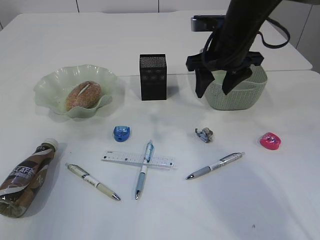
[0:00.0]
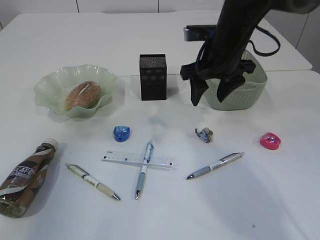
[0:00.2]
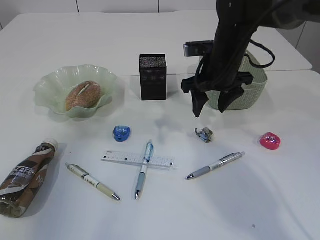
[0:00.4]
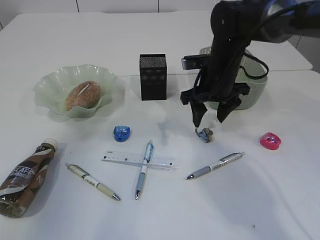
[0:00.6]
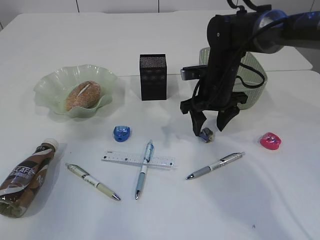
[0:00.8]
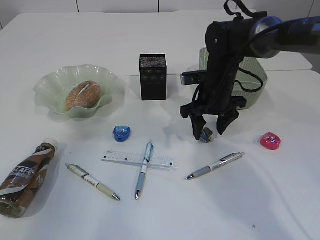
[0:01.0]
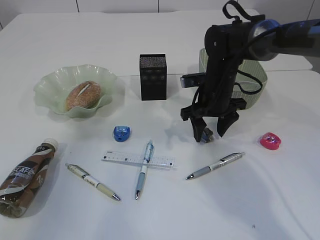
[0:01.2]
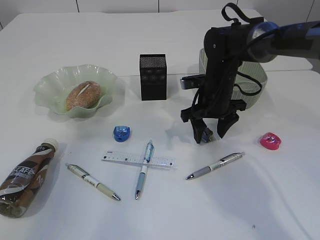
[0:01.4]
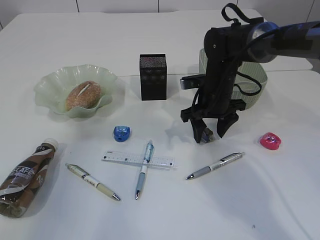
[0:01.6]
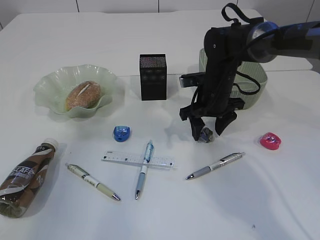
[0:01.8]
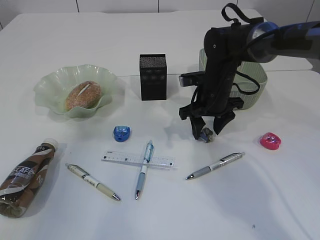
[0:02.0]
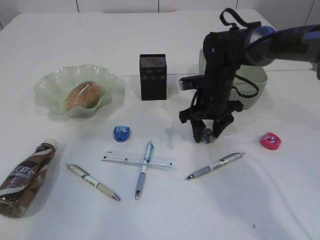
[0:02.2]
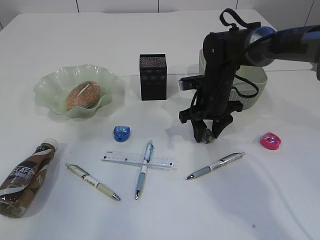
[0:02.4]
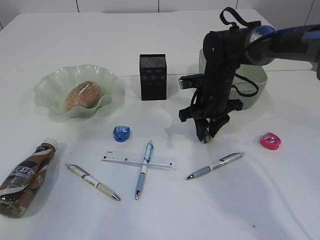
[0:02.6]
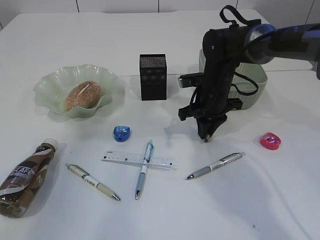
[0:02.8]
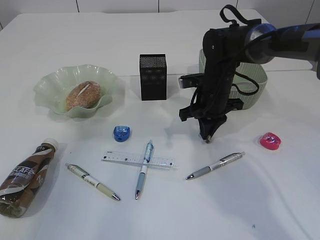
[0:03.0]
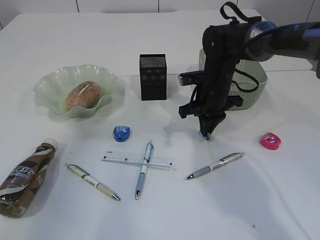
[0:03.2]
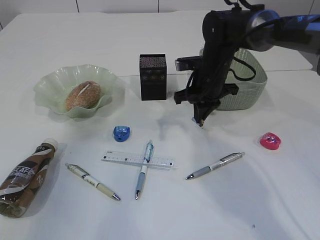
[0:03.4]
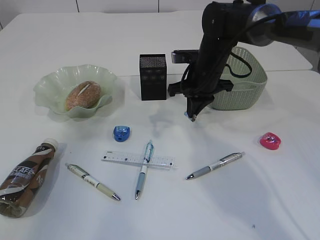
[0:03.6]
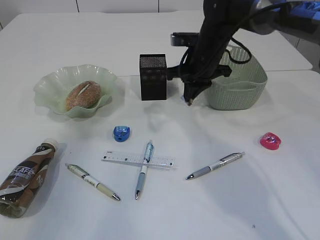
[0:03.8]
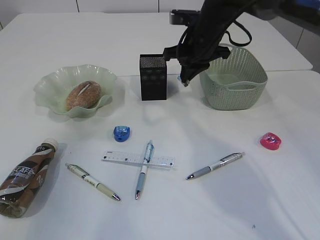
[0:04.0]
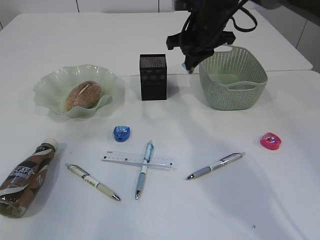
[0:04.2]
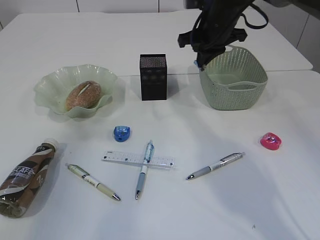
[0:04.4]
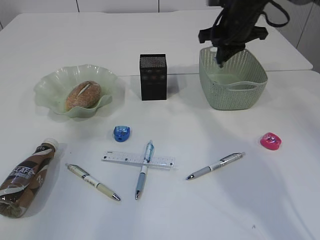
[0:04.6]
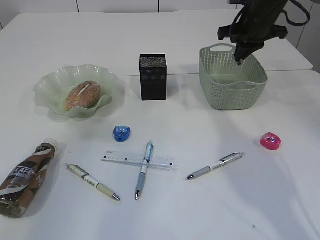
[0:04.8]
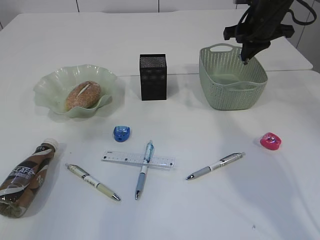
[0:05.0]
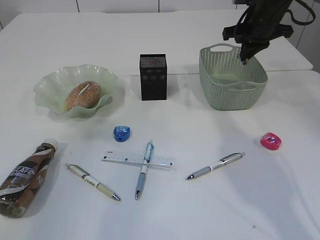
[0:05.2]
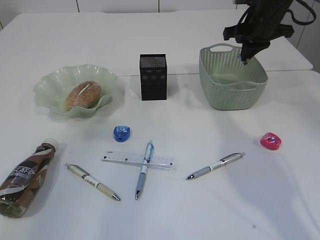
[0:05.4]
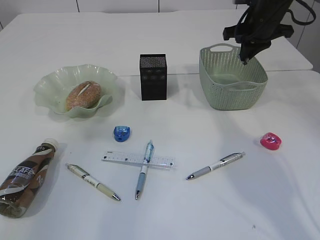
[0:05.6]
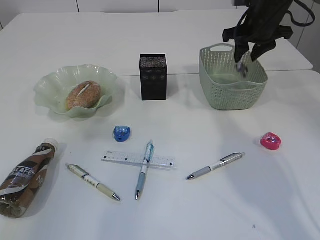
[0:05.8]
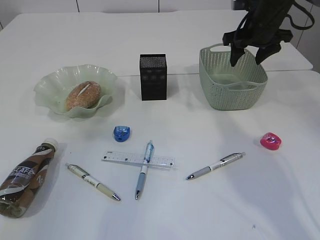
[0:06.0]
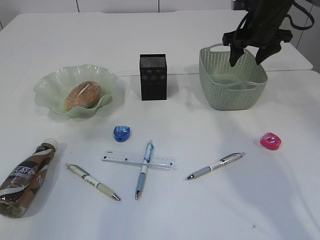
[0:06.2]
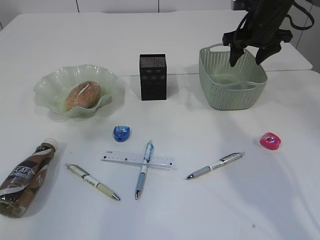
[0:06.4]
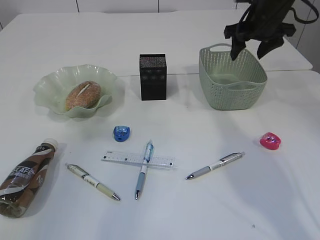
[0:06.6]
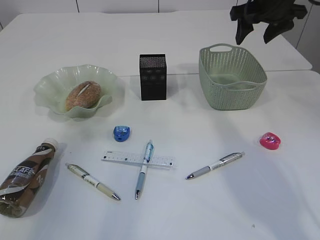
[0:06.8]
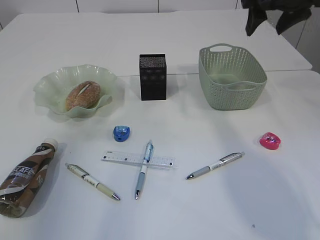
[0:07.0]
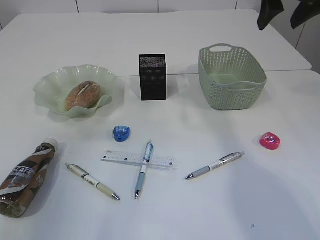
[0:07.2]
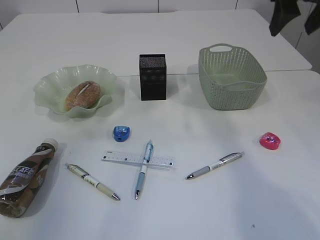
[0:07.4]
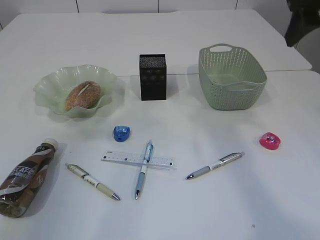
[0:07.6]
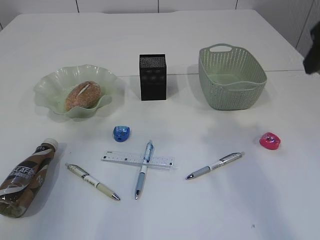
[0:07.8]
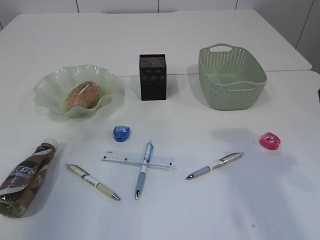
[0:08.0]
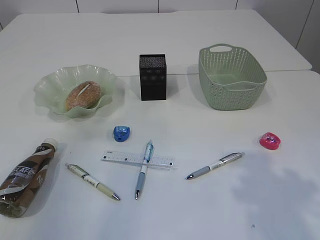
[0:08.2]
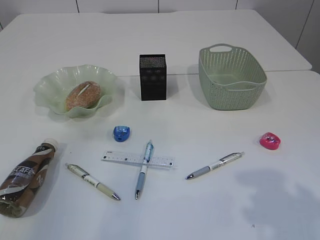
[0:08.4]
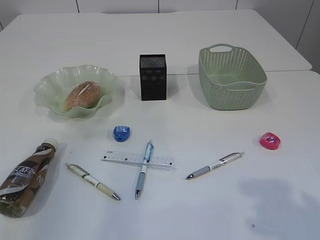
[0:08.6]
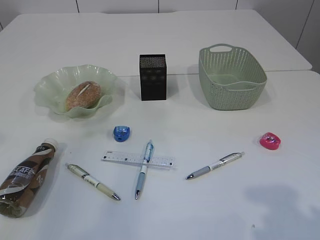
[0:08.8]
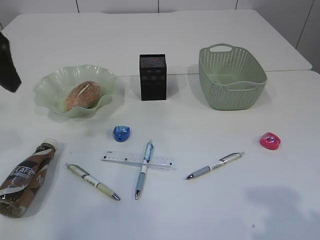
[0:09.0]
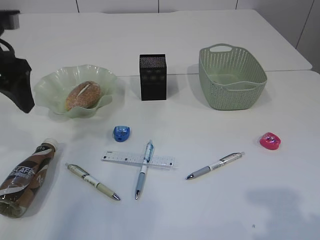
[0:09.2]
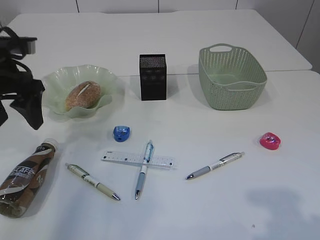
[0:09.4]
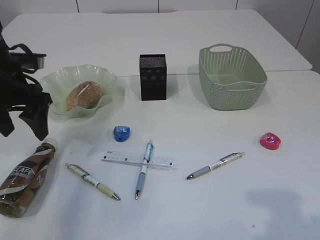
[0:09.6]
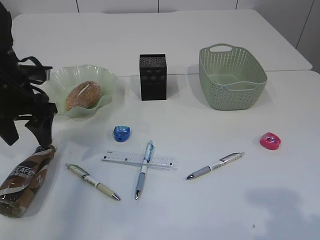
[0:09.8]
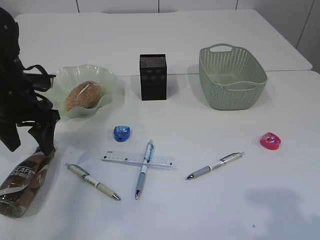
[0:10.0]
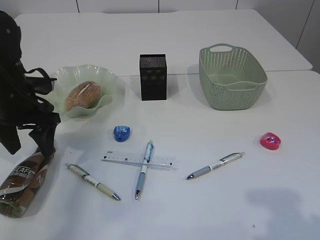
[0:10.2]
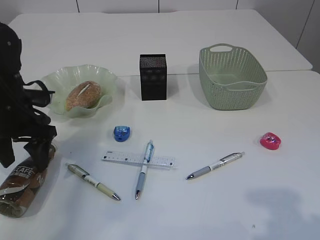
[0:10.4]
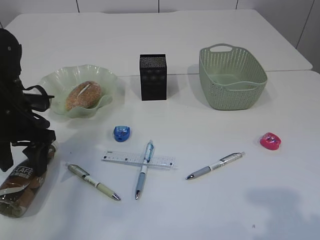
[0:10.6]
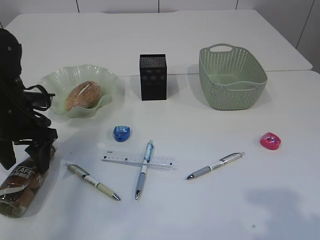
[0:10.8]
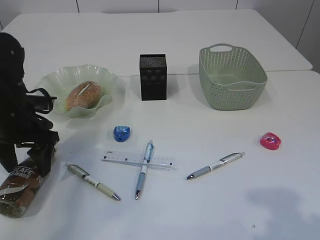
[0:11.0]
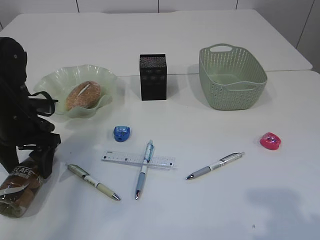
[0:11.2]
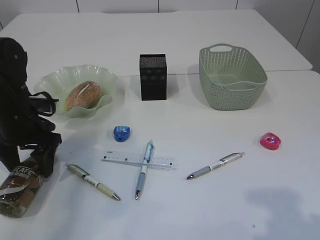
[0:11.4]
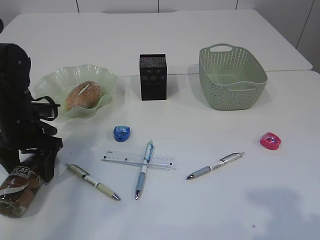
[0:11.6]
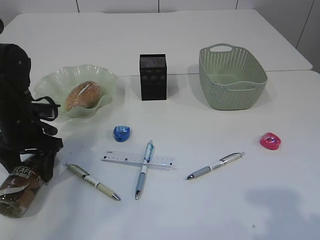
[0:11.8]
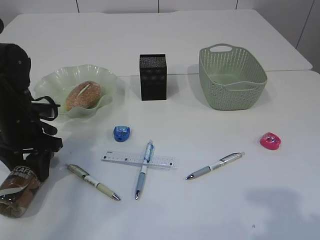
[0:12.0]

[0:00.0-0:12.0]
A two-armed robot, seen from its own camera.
Step, 0:00.0 to 0:03.6: Pick up the waste paper.
Step, 0:03.8 to 0:06.8: Place the waste paper in the basket.
0:00.0 to 0:01.6: The right gripper moves downward, approximately 10 cm.
0:01.6 to 0:03.0: The right gripper closes its fingers.
0:03.0 to 0:04.4: The right gripper heads upward, covering roughly 15 cm.
0:04.4 to 0:06.0: The right gripper shifts some 10 cm to the right, and opens up.
0:06.0 to 0:07.6: The right gripper is displaced backward and upward by some 20 cm.
0:07.6 to 0:09.0: The left gripper travels downward and forward by some 10 cm; the right gripper goes some 25 cm backward and downward.
0:09.0 to 0:10.4: The left gripper travels downward by some 20 cm.
0:10.4 to 0:12.0: The left gripper closes its fingers.

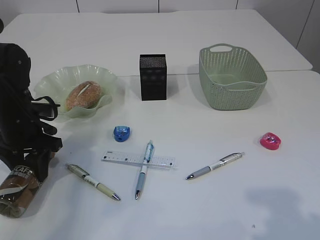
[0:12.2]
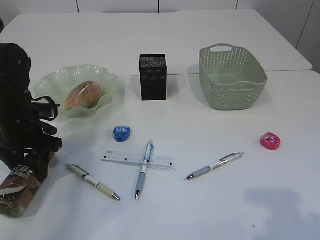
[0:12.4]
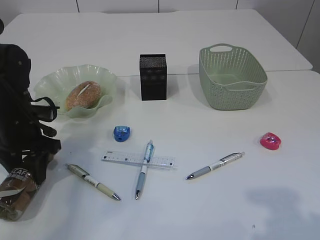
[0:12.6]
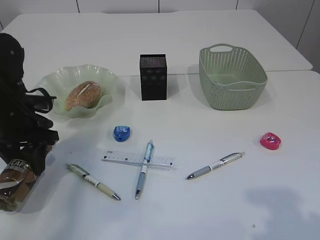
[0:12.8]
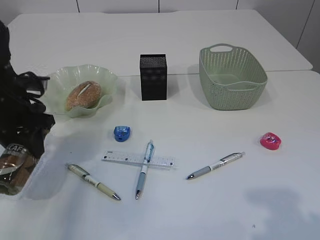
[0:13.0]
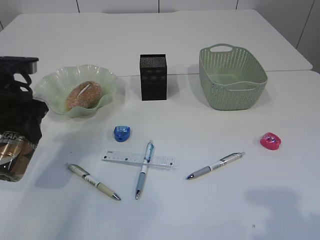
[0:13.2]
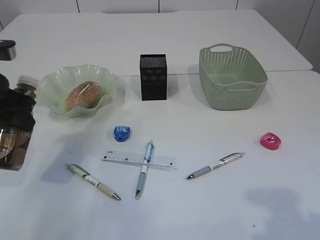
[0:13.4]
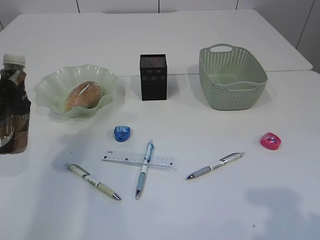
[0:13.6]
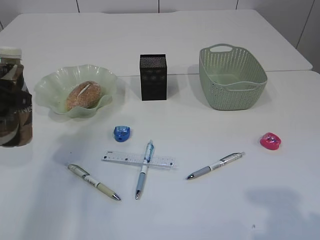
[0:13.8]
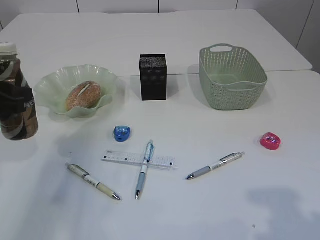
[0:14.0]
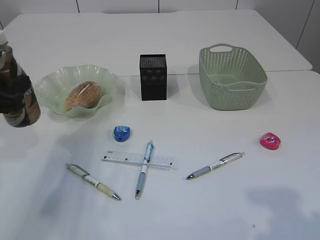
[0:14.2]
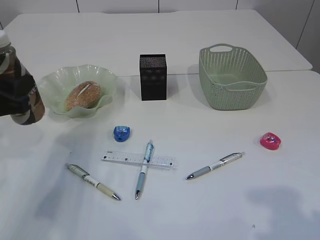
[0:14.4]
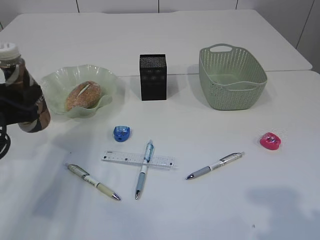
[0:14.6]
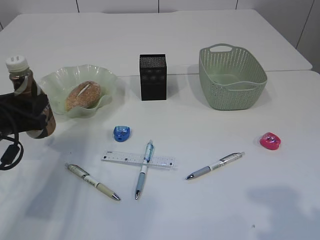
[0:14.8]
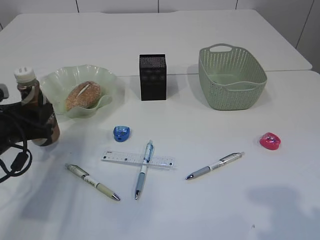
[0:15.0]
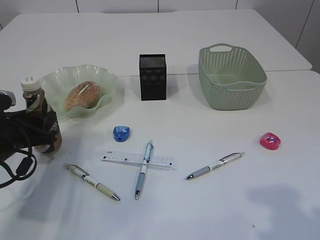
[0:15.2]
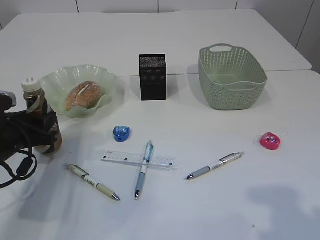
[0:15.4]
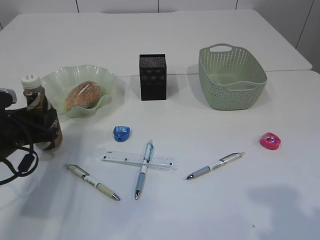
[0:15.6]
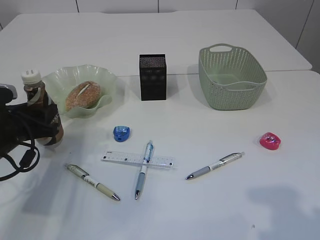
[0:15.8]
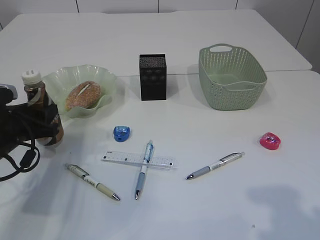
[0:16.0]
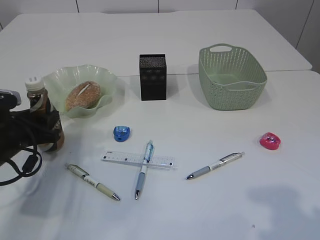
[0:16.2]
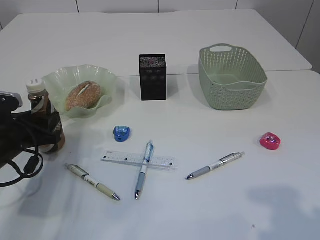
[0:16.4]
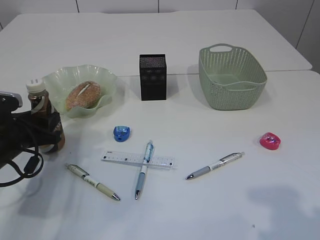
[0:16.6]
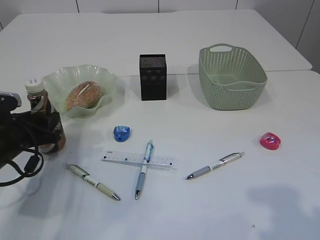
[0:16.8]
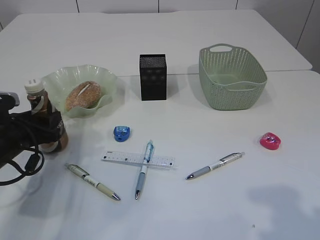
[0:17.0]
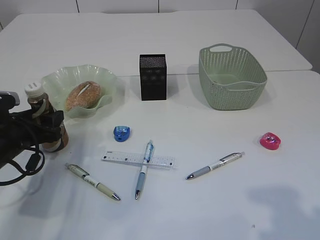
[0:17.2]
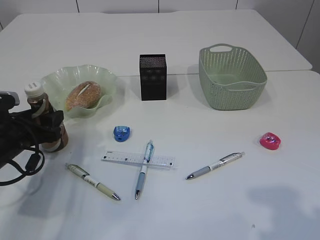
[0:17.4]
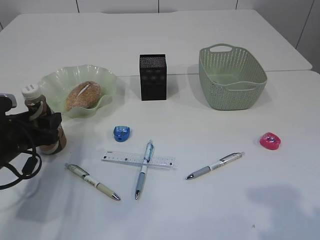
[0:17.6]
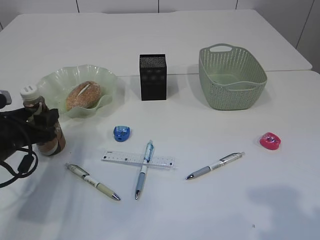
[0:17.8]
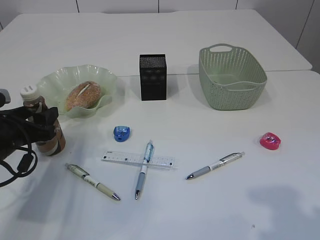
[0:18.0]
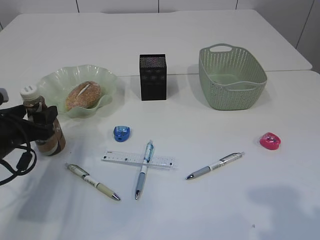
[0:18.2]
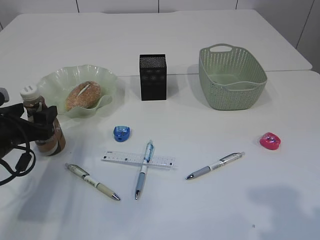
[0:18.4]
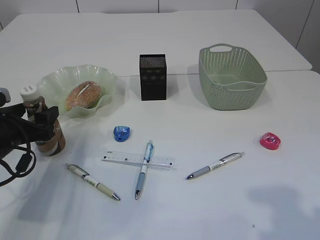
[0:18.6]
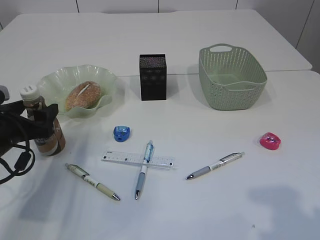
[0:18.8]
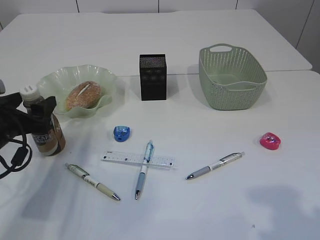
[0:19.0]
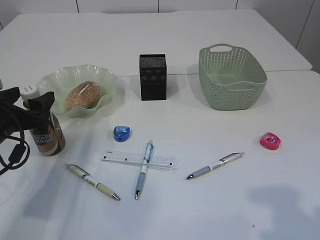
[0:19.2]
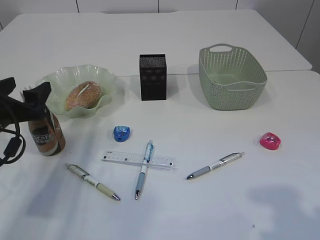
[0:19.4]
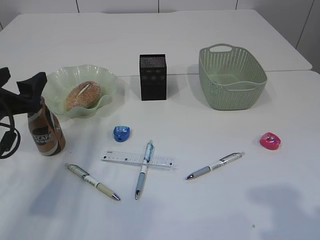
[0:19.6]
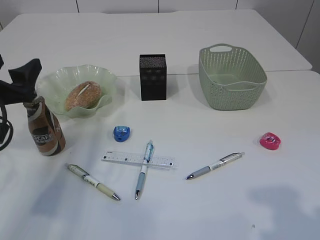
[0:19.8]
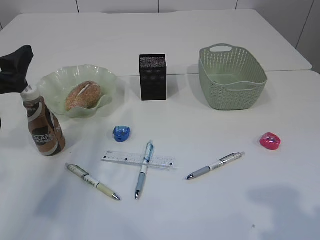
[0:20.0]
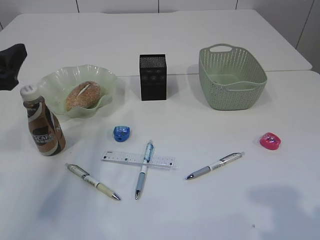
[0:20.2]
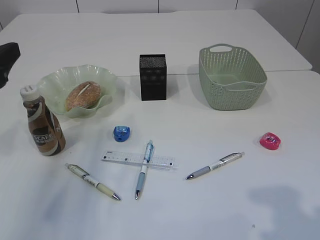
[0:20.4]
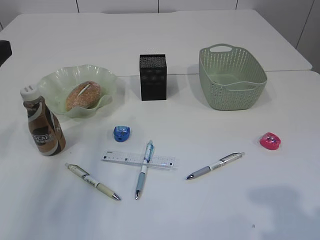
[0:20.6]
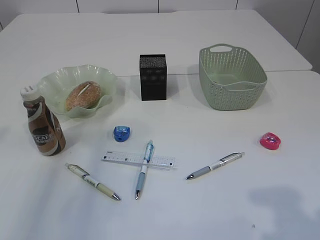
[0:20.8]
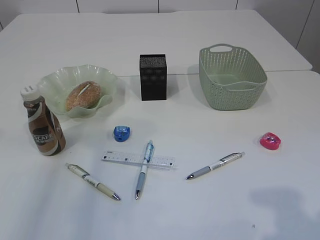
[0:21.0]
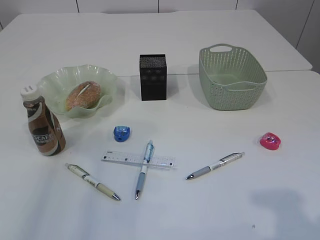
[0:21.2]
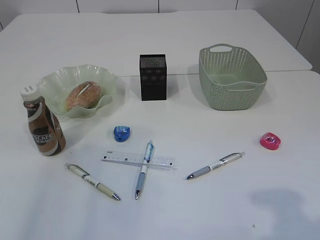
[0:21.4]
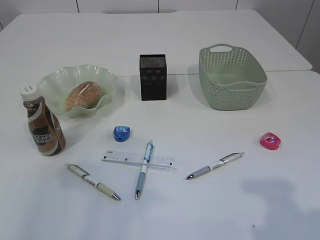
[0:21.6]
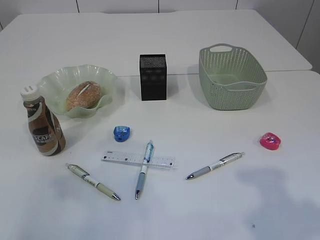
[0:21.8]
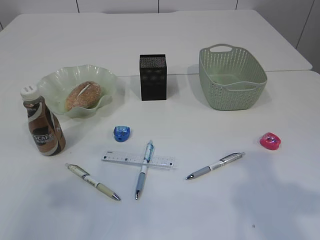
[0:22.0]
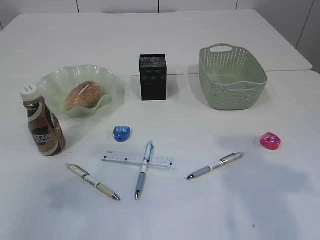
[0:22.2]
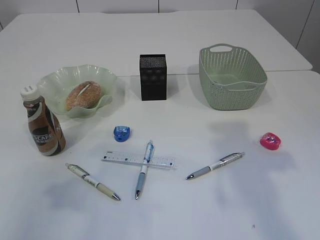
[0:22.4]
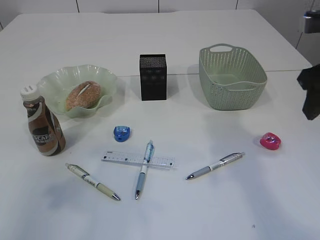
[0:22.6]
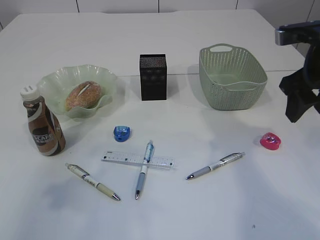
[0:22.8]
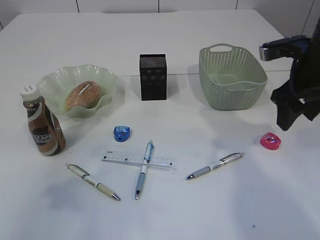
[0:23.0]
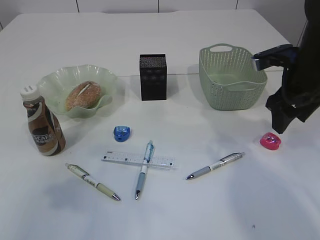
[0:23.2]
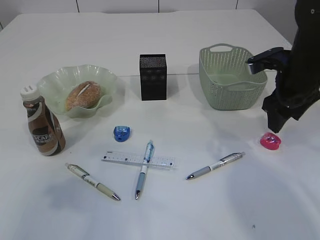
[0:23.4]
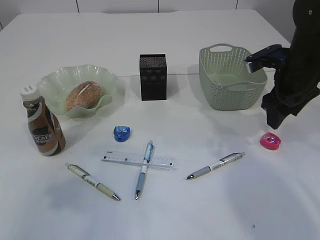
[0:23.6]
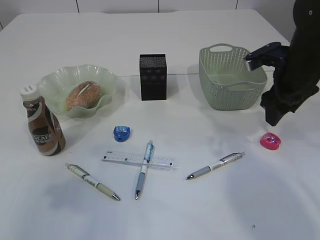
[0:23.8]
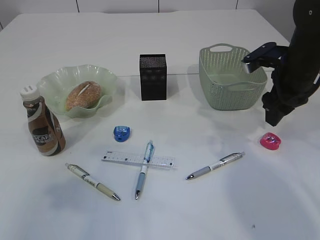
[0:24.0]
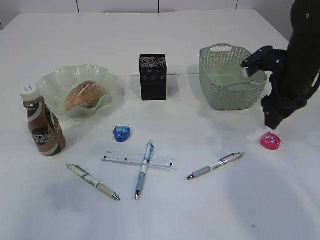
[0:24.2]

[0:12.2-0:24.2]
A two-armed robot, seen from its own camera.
Step, 0:13.2 to 0:20.0: Place the bottle.
0:12.2 to 0:13.8: The left gripper is displaced upward and backward by roughly 15 cm.
0:13.8 to 0:15.2: The left gripper heads downward, covering approximately 15 cm.
0:15.2 to 0:16.6: The grippers stay close to where they were, moving slightly.
0:16.6 to 0:18.2: The left gripper opens.
0:18.2 to 0:19.8: The left gripper shifts some 10 cm upward.
0:19.8 to 0:21.2: The left gripper shifts roughly 20 cm upward and backward.
0:21.2 to 0:22.6: The right gripper goes approximately 20 cm forward.
0:22.6 to 0:24.2: The right gripper is displaced forward and downward by some 15 cm.
